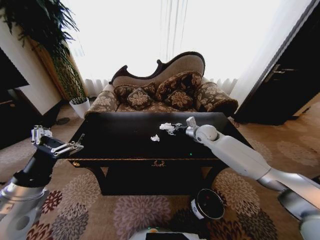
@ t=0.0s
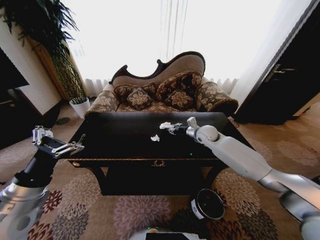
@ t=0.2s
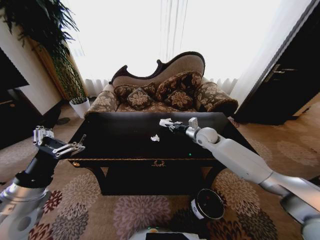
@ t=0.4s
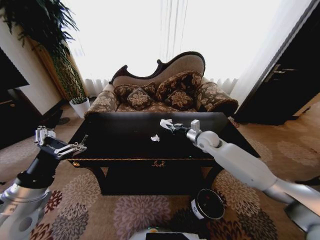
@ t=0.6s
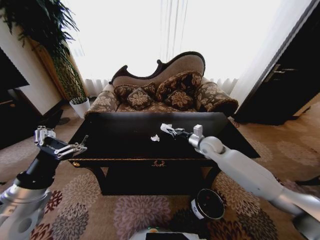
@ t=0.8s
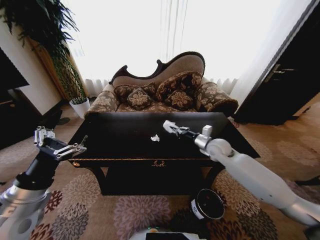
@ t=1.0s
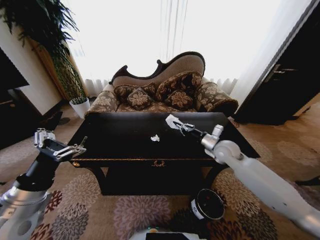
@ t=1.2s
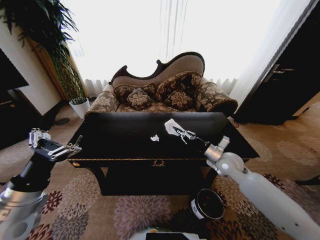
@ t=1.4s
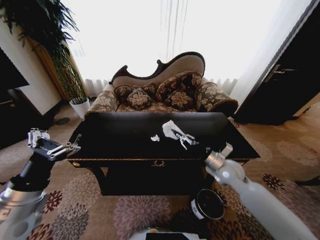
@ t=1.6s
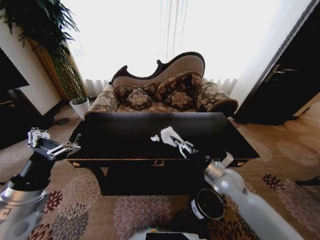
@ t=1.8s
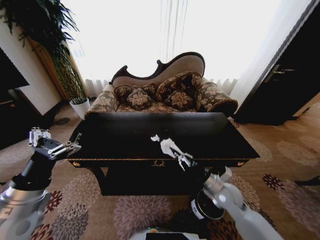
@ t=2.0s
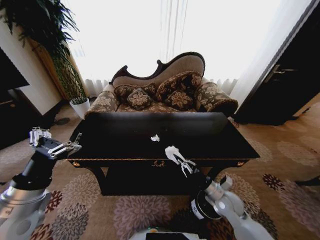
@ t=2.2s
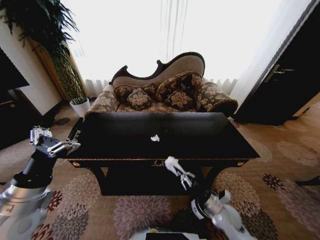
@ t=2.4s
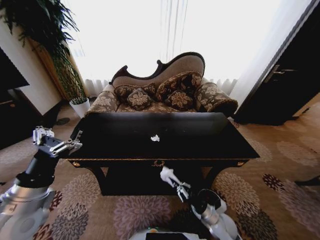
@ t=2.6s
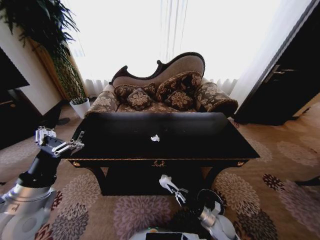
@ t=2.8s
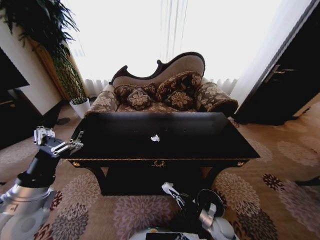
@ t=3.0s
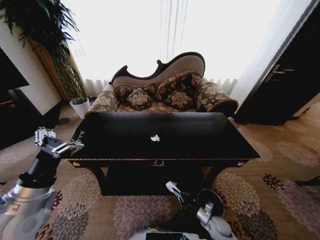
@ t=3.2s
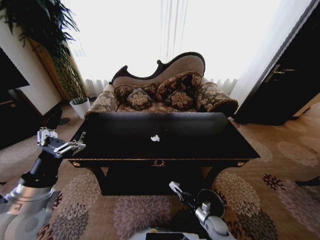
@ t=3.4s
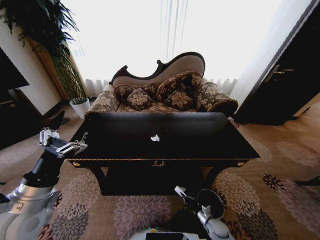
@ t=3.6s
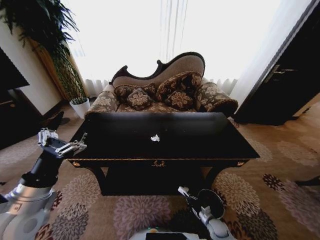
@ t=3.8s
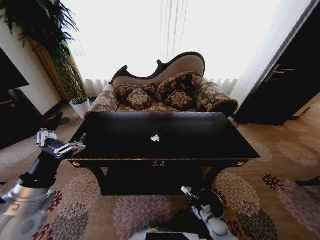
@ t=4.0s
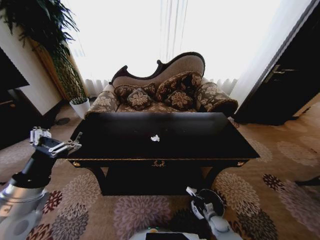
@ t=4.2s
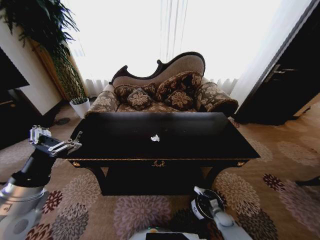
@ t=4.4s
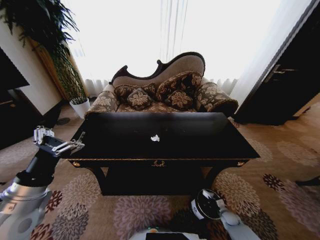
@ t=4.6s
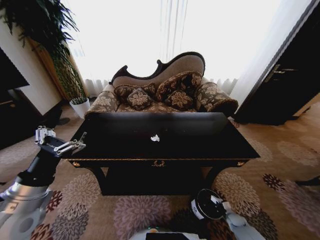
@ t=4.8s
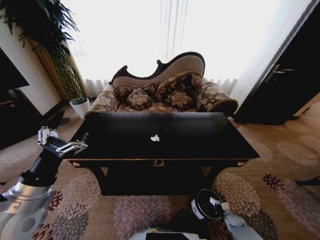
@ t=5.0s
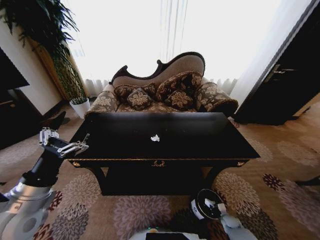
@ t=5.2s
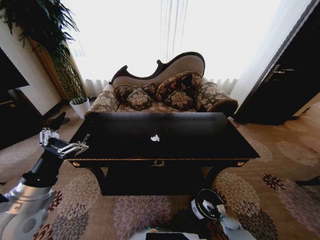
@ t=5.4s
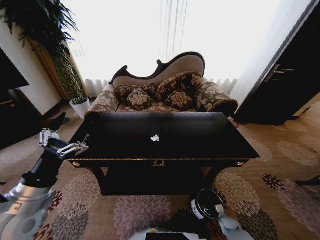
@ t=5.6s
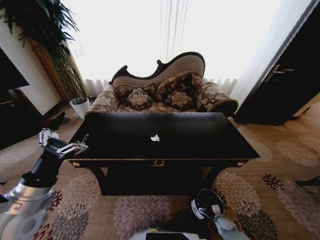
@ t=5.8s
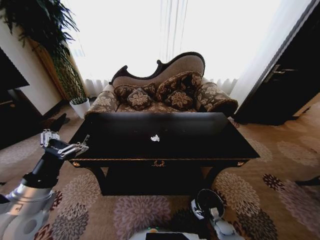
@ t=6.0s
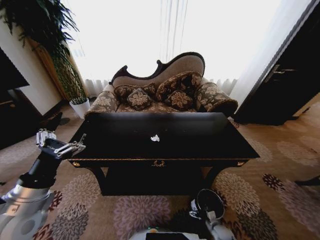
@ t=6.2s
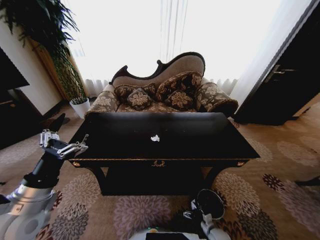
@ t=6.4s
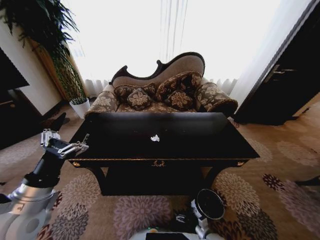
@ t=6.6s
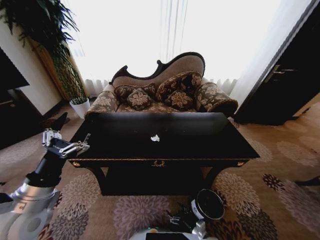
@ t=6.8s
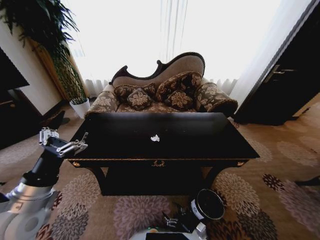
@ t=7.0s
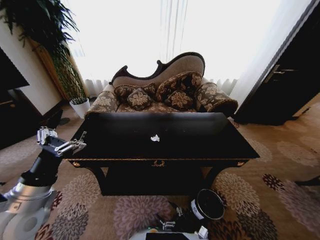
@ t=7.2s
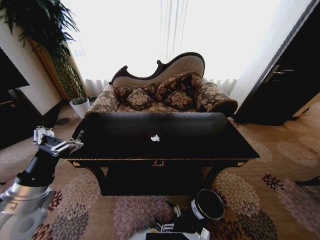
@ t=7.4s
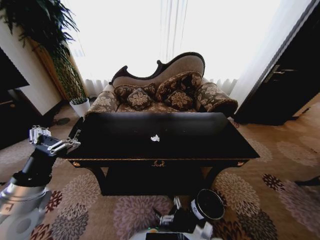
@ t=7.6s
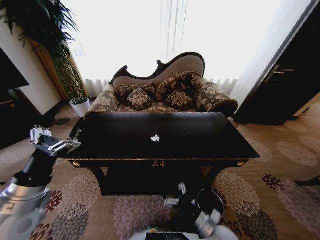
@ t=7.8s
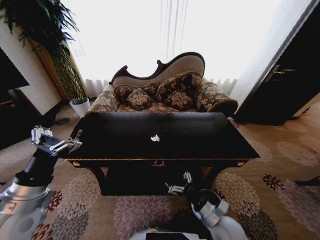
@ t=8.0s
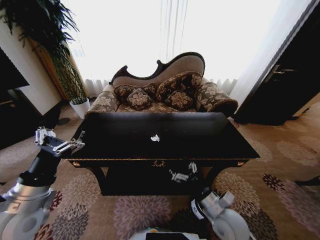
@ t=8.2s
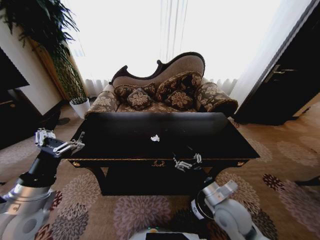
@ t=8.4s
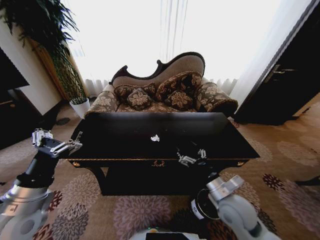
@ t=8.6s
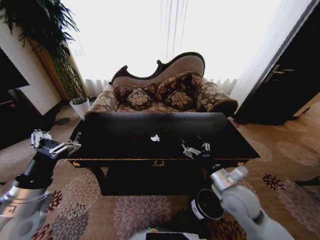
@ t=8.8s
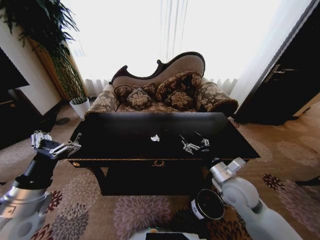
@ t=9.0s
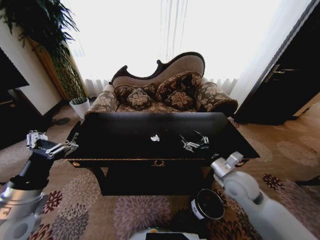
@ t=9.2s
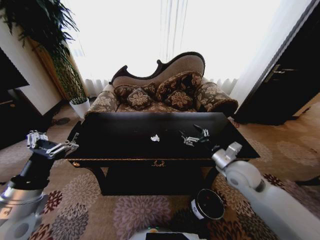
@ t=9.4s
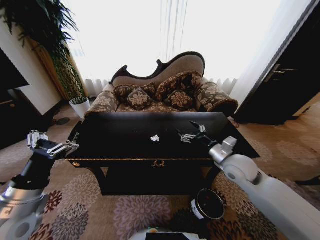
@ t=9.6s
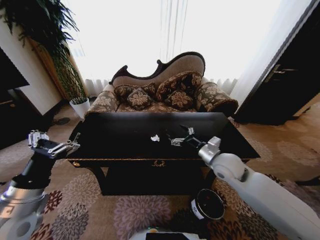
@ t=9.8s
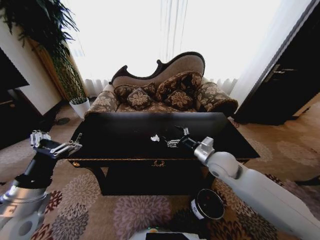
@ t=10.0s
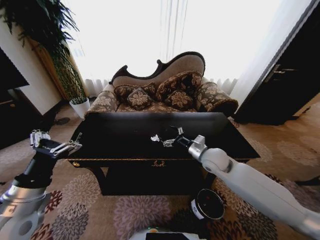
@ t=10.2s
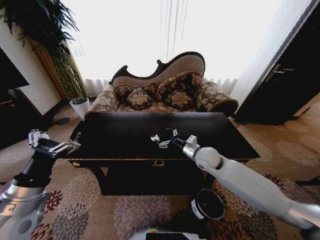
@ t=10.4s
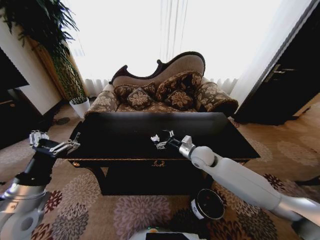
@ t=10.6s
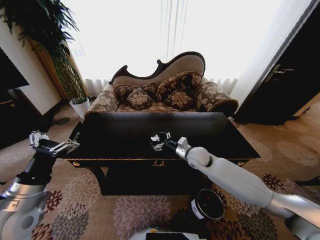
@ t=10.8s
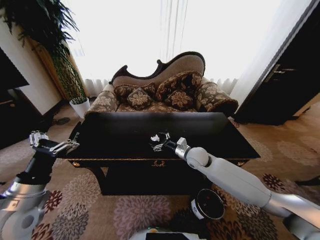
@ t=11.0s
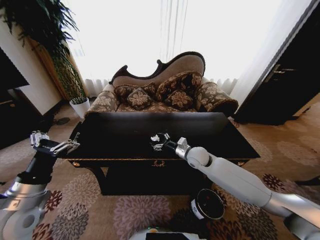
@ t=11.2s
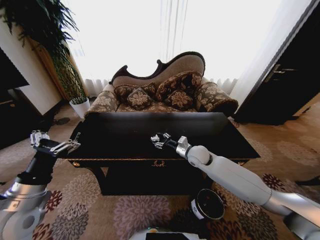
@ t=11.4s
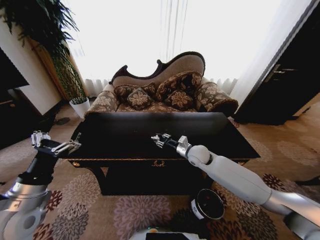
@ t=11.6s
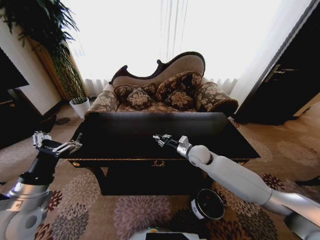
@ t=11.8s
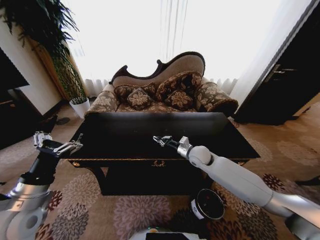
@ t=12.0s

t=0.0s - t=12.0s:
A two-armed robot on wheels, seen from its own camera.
Task of the whole recording: Move to the front of the table and place the trash on the table into the trash bin.
t=0.0s - t=1.6s: The right gripper heads backward, covering about 20 cm, and closes.
t=1.6s - t=3.0s: The right gripper moves downward and backward, approximately 30 cm.
t=3.0s - t=4.4s: The right gripper moves downward and to the right, approximately 10 cm.
t=4.4s - t=6.0s: The right gripper reaches approximately 5 cm to the right, then returns, and opens up.
t=6.0s - t=7.6s: The right gripper travels upward and to the left by some 30 cm.
t=7.6s - t=9.0s: The right gripper heads upward and forward, covering approximately 25 cm.
t=9.0s - t=10.4s: The right gripper moves forward and to the left, about 15 cm.
t=10.4s - t=12.0s: The right gripper closes.

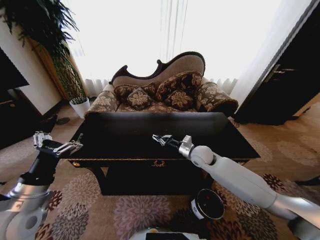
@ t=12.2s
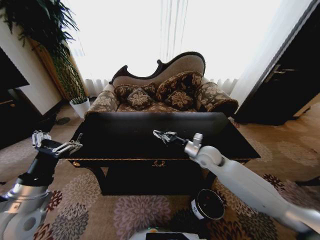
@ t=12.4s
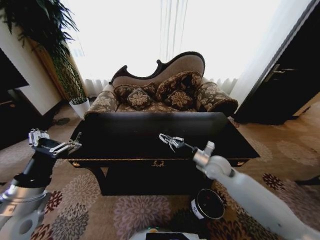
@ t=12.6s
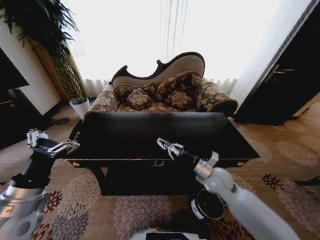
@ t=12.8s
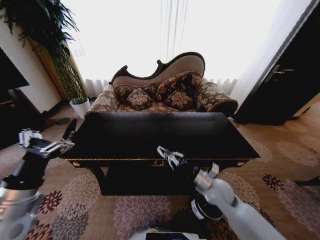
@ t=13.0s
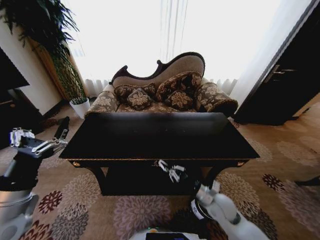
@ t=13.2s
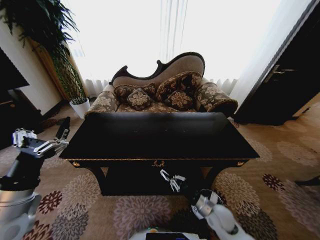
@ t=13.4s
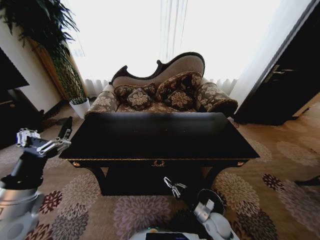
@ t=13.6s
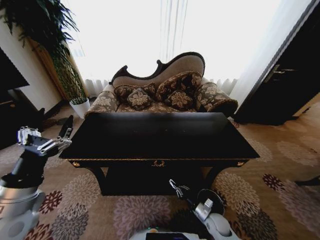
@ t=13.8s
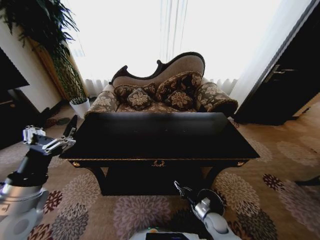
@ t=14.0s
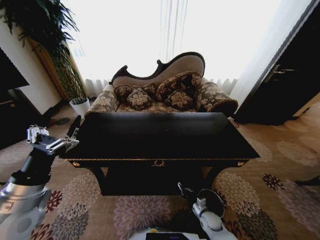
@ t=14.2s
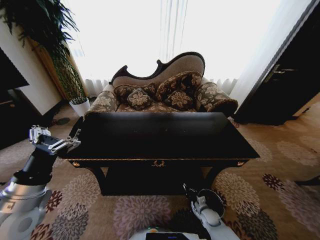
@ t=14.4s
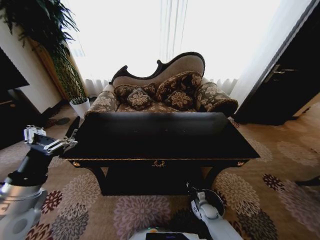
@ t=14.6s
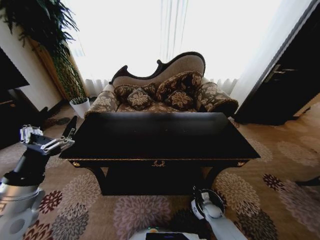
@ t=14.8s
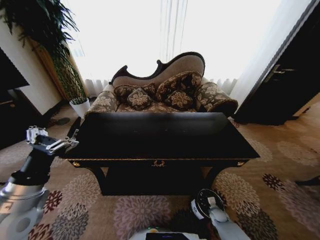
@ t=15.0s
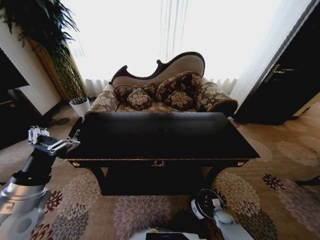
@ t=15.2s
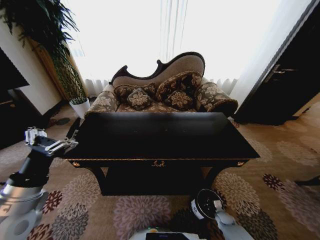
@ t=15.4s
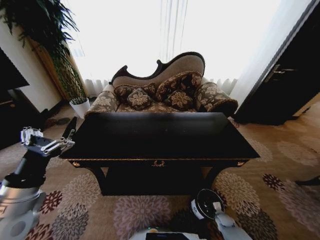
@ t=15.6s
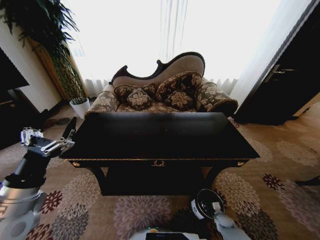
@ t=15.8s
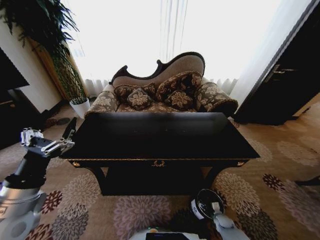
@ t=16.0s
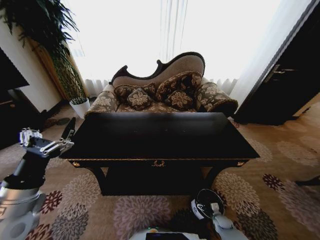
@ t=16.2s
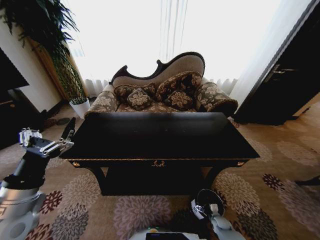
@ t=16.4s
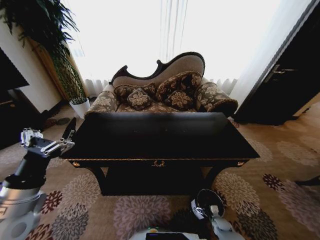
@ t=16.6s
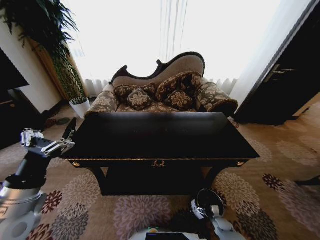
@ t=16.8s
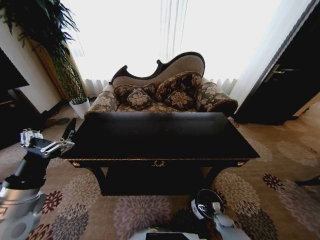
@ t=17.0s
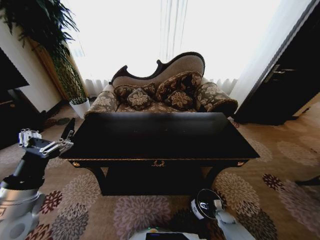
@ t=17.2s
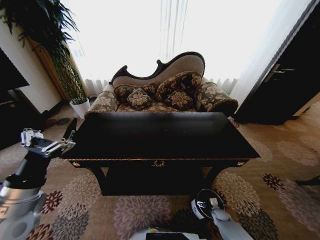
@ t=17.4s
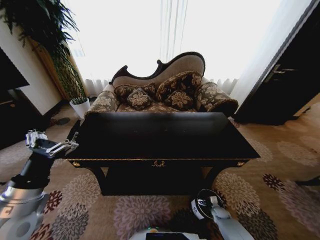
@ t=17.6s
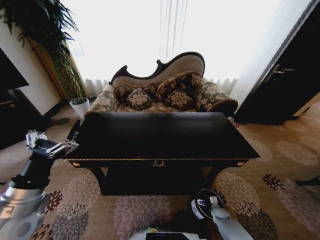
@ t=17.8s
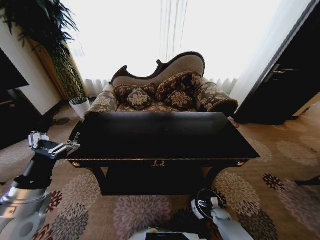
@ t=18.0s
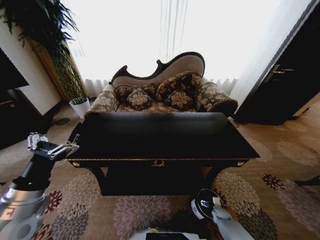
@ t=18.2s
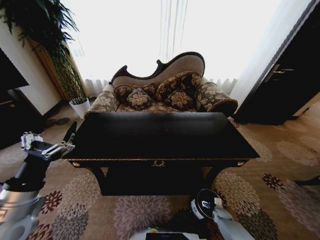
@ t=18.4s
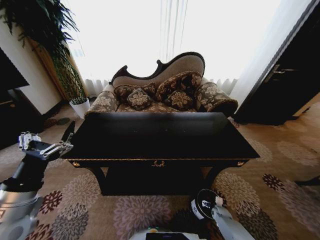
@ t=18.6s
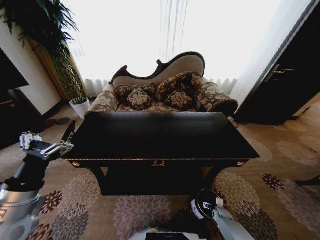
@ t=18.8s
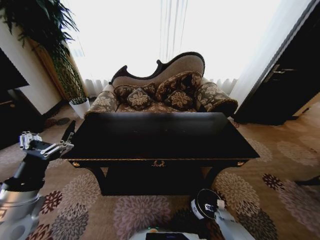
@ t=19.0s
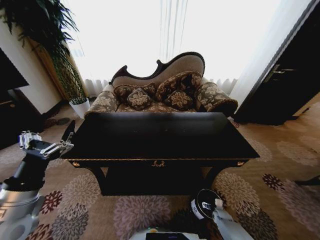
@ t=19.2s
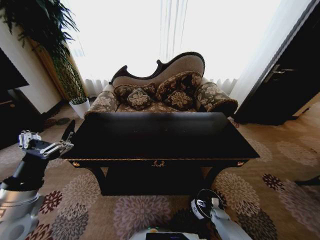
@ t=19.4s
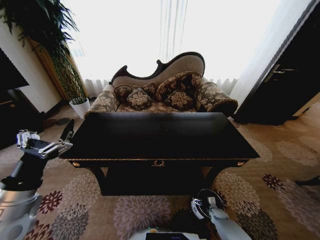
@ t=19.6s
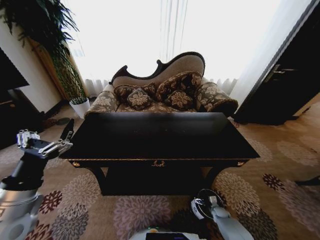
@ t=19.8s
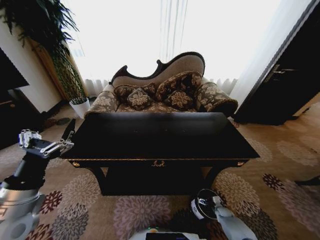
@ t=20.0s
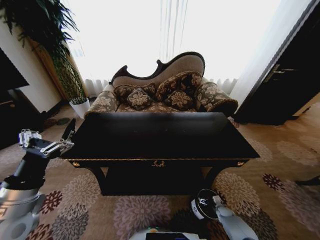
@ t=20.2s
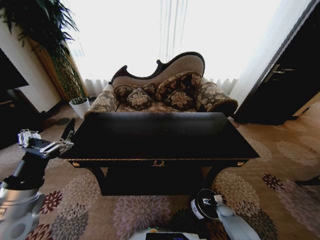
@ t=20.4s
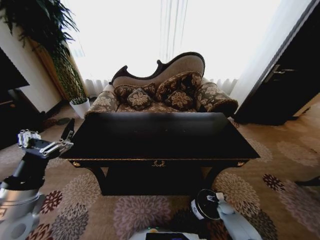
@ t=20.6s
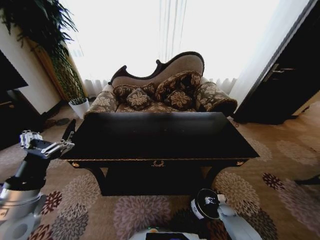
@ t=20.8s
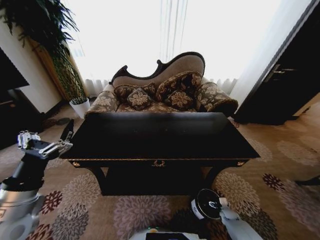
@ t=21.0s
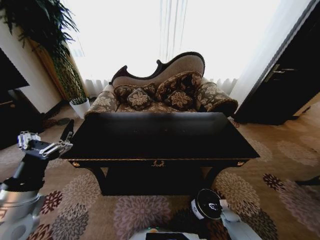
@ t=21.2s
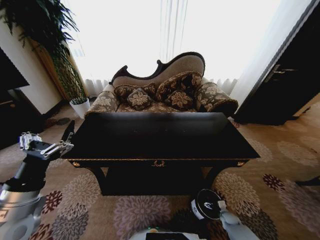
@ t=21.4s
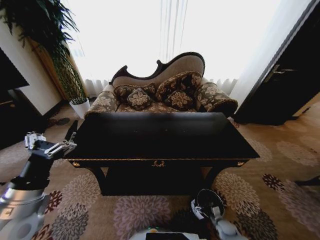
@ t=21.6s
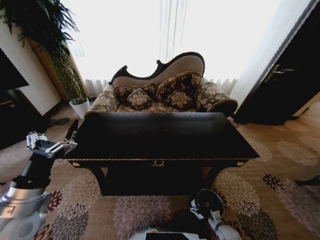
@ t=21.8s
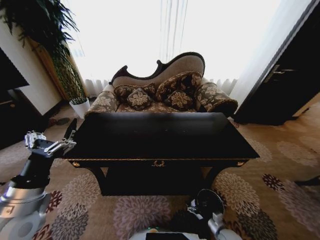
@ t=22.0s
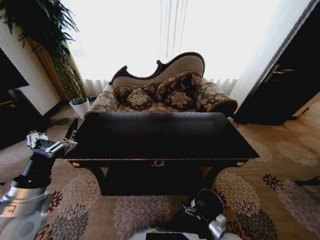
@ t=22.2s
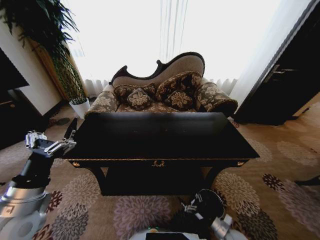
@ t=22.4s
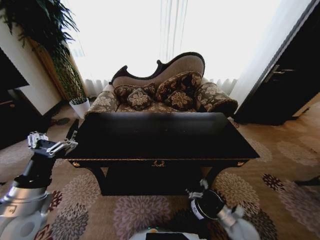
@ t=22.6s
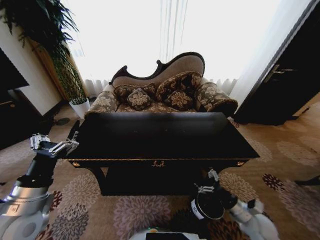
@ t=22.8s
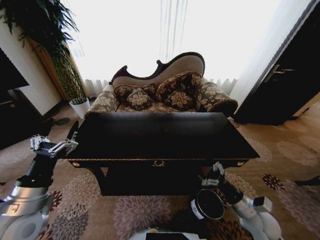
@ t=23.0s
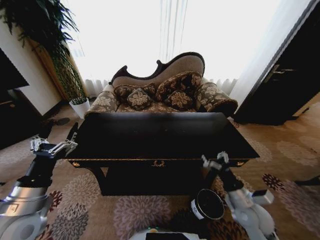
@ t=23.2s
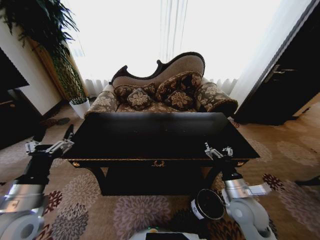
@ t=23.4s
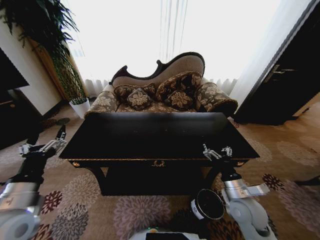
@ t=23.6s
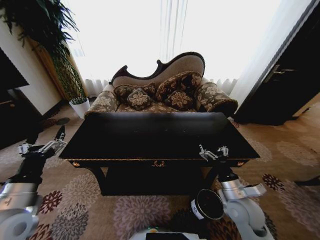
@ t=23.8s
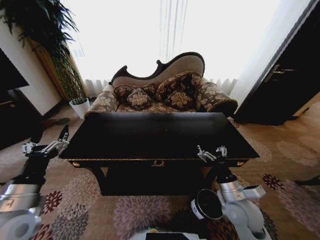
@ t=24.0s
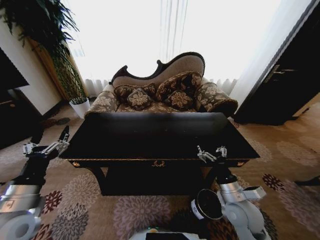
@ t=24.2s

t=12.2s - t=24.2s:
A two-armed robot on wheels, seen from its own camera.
Task of the whole recording: Move to the front of the table and place the trash on the table into the trash bin.
t=12.2s - t=13.8s: The right gripper goes roughly 35 cm downward and backward.
t=13.8s - t=15.2s: The right gripper travels downward and to the right by roughly 15 cm.
t=15.2s - t=16.6s: The right gripper opens up.
t=16.6s - t=18.2s: The right gripper moves roughly 5 cm.
t=18.2s - t=21.2s: The grippers stay close to where they were, moving slightly.
t=21.2s - t=22.6s: The right gripper travels upward and to the left by some 20 cm.
t=22.6s - t=24.2s: The right gripper travels upward and to the left by approximately 20 cm.
